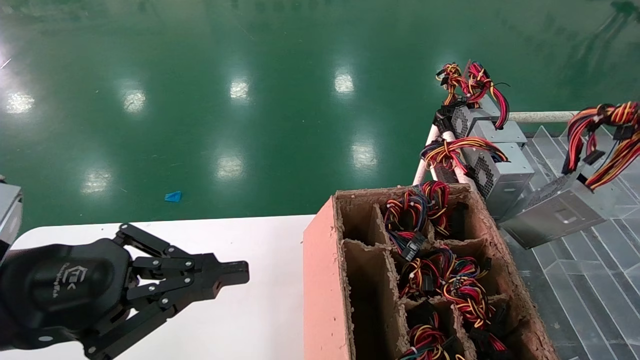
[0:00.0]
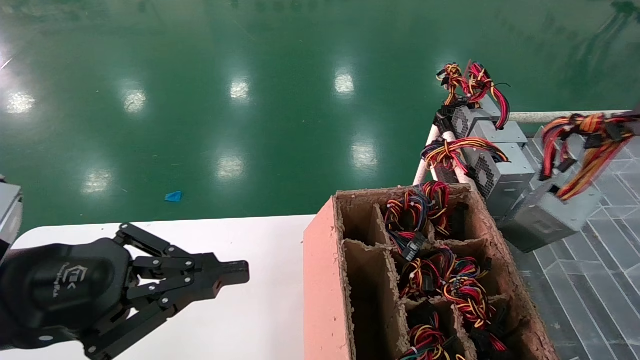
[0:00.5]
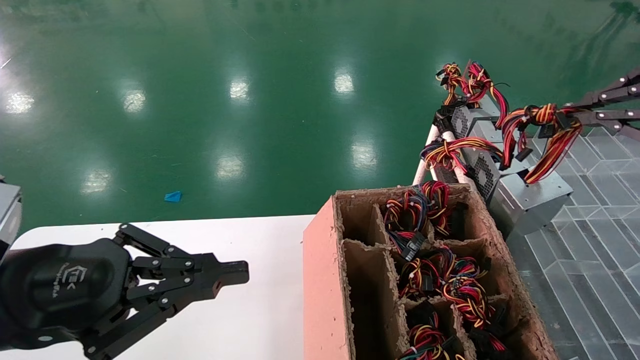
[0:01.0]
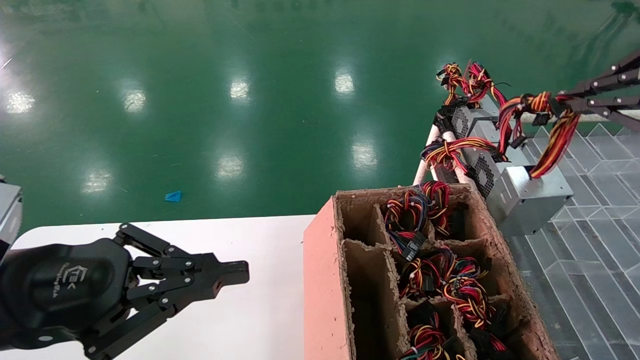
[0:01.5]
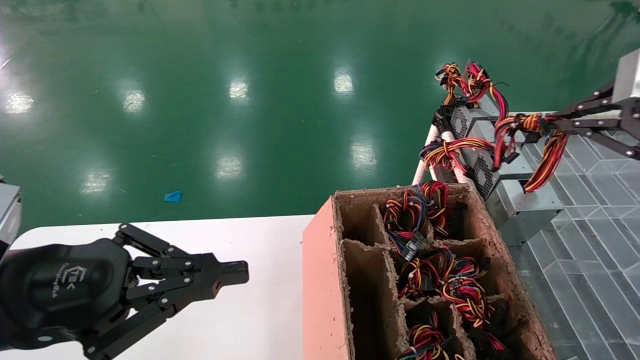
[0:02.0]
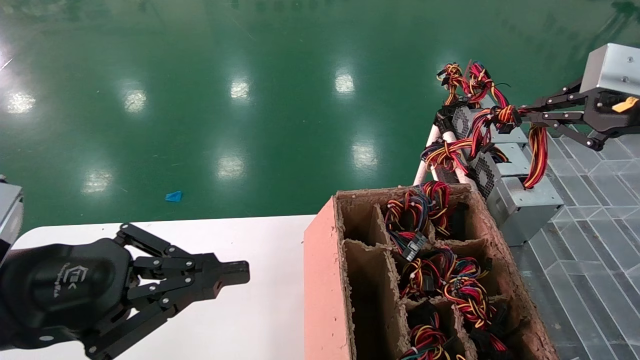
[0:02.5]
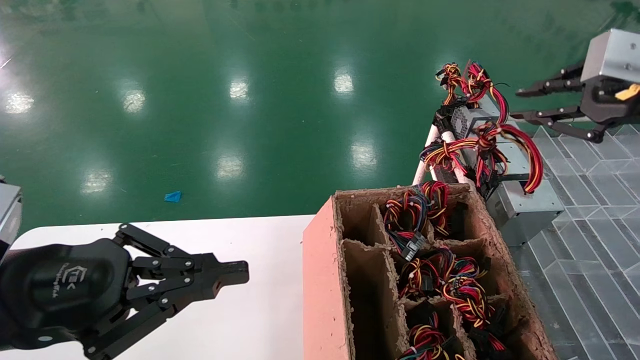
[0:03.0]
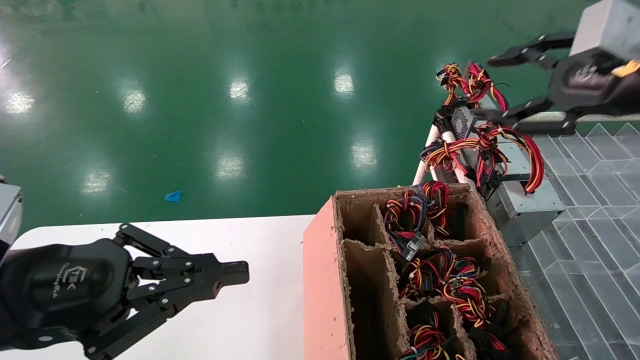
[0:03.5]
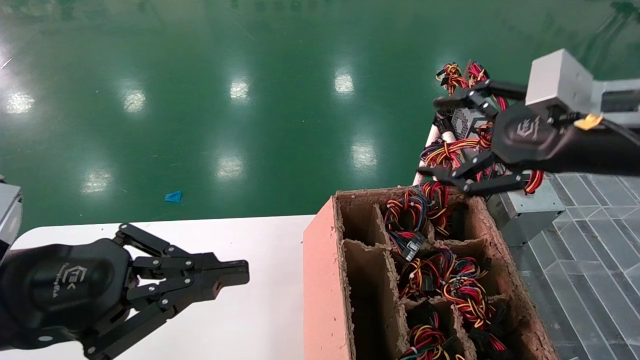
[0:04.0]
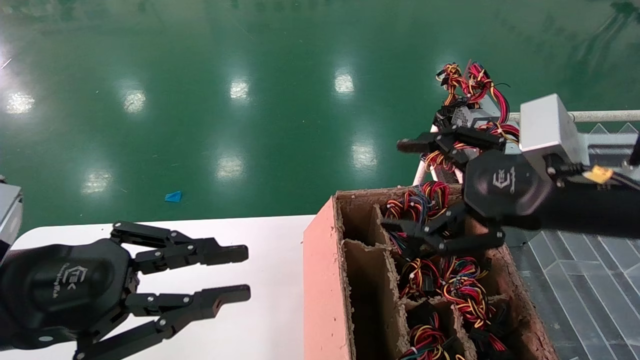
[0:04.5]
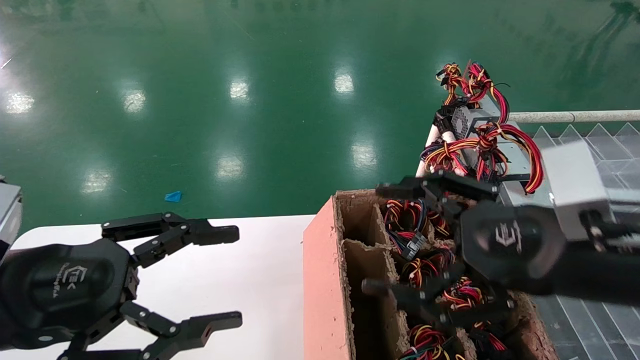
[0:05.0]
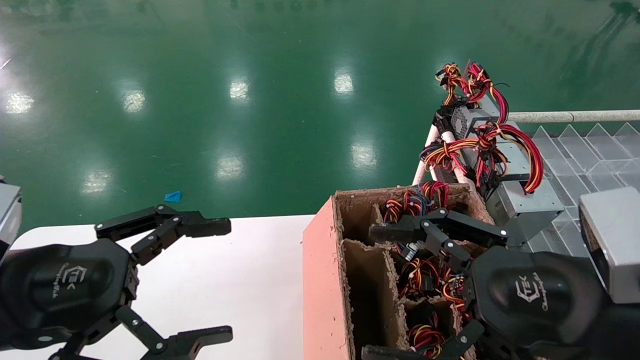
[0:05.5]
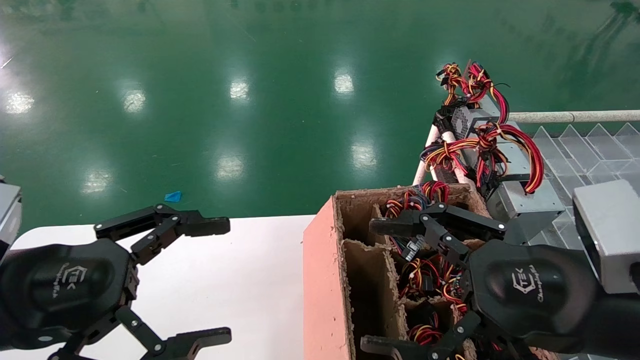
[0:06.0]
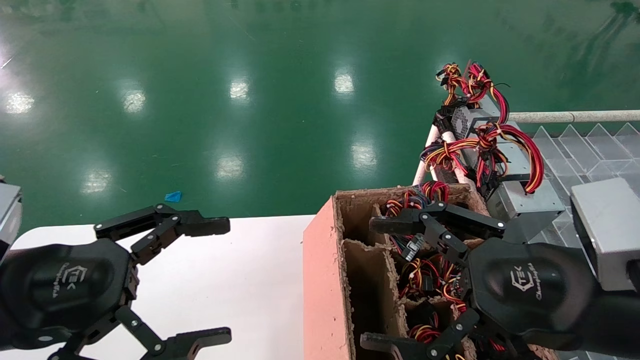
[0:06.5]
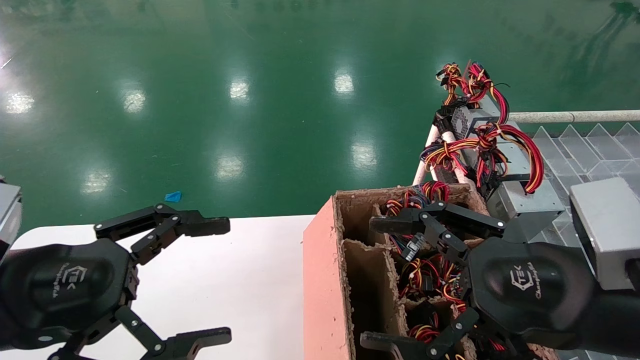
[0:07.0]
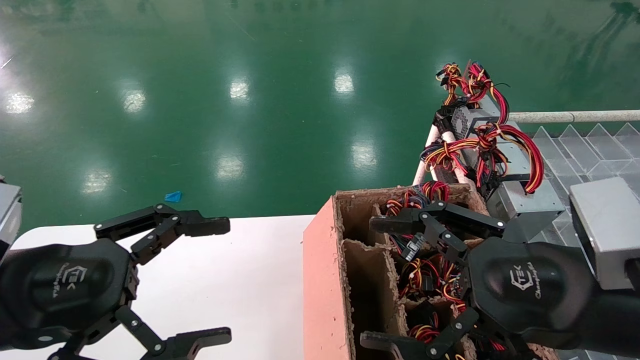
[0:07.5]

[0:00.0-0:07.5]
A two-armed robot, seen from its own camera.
Step, 0:00.0 to 0:02.5: Place the main unit power supply in the designated area.
0:00.0 to 0:02.0: The right gripper shifts approximately 10 cm forward.
0:02.0 to 0:04.0: The right gripper goes approximately 10 cm to the left and downward, and opens.
0:04.0 to 0:05.5: The left gripper opens. Meanwhile the right gripper is displaced downward, backward and to the left by about 15 cm.
0:05.5 to 0:07.5: Neither gripper changes place.
